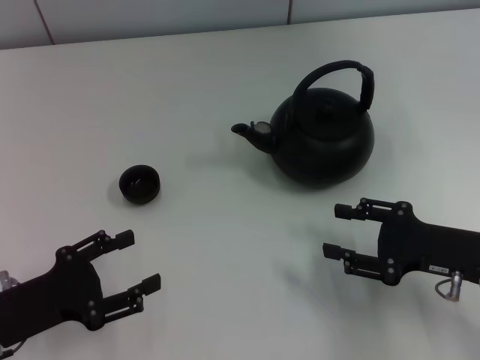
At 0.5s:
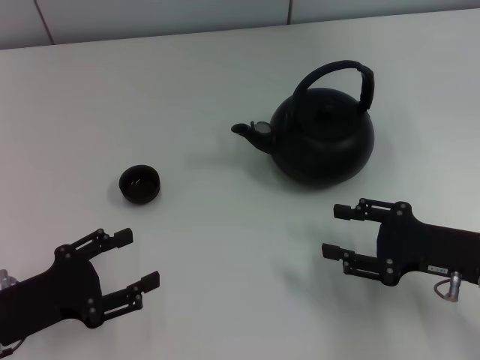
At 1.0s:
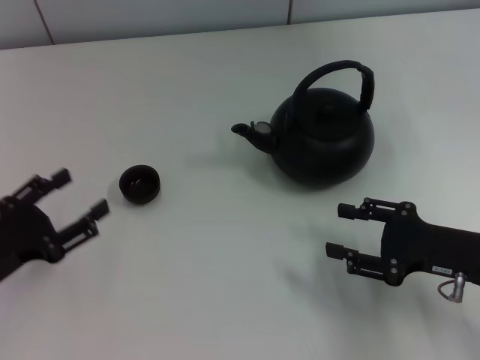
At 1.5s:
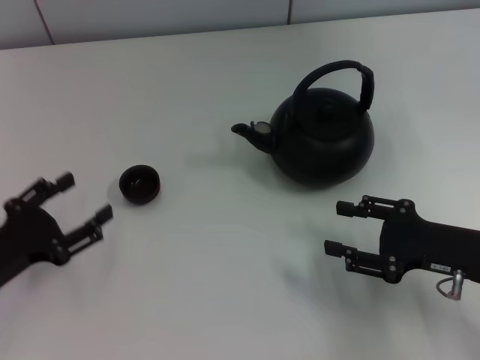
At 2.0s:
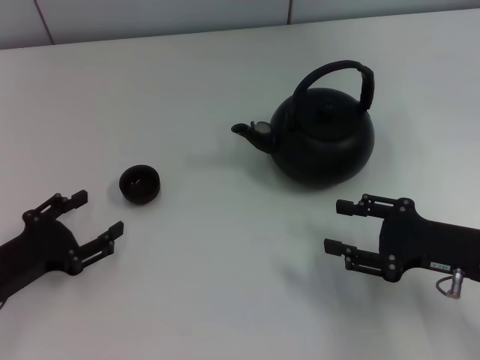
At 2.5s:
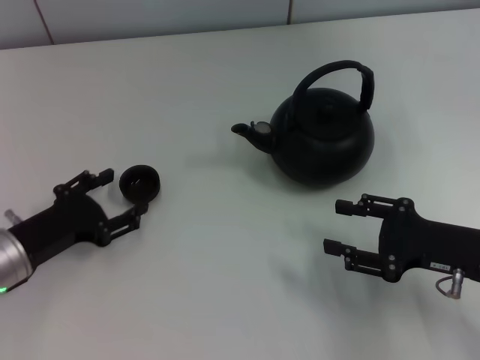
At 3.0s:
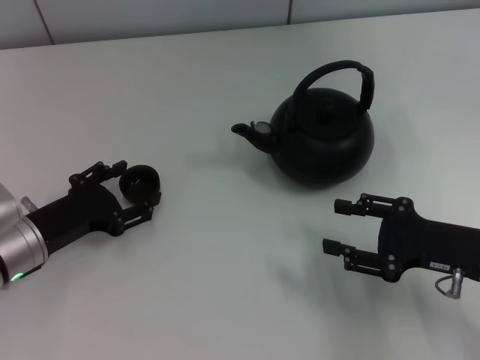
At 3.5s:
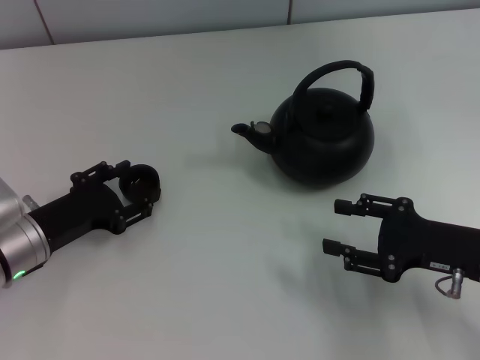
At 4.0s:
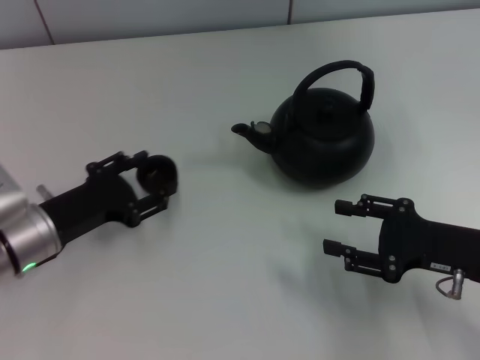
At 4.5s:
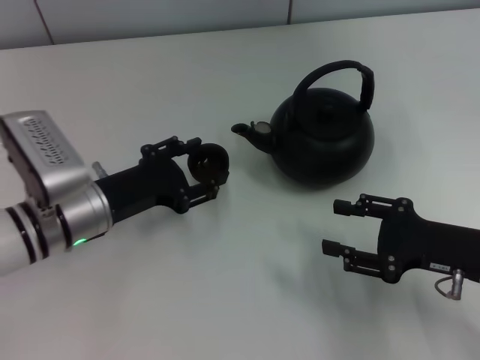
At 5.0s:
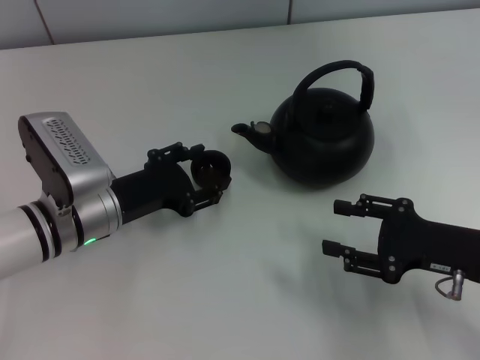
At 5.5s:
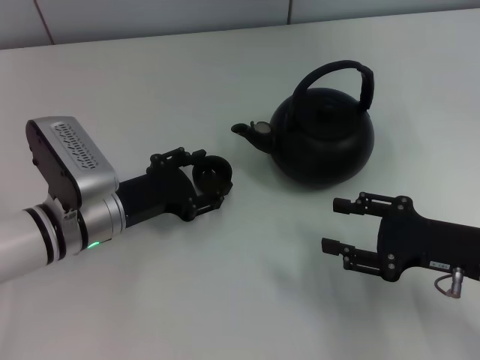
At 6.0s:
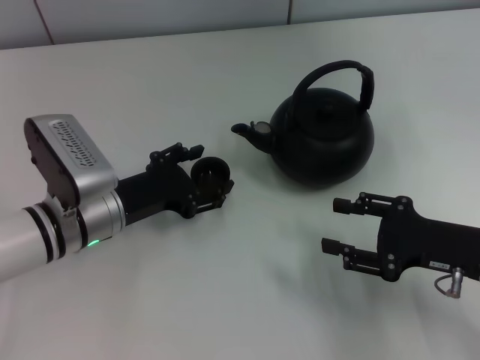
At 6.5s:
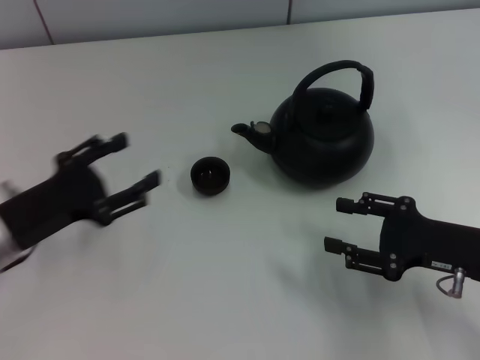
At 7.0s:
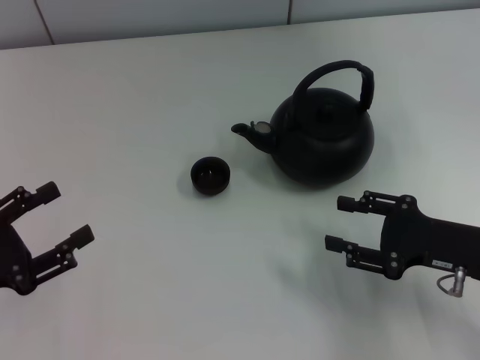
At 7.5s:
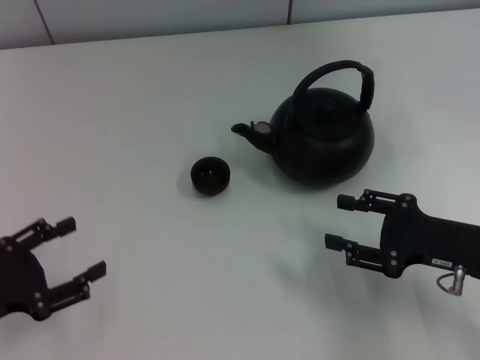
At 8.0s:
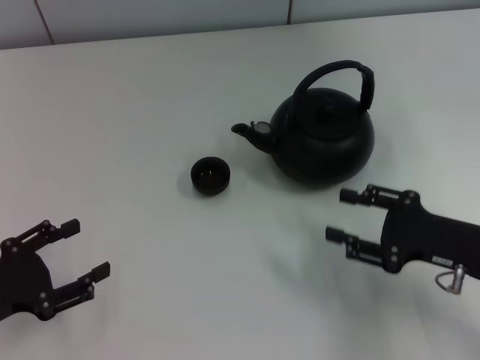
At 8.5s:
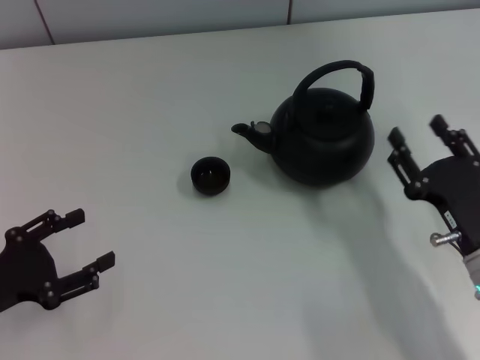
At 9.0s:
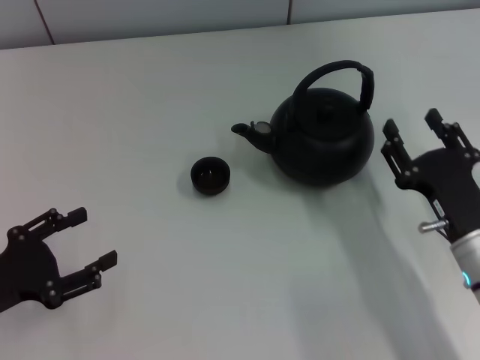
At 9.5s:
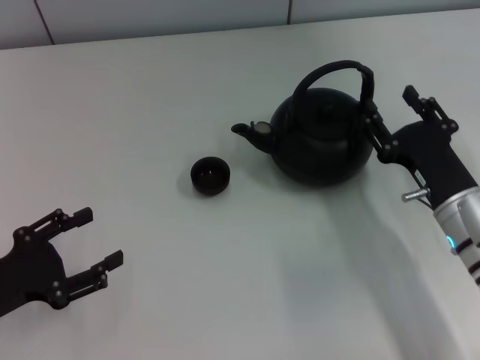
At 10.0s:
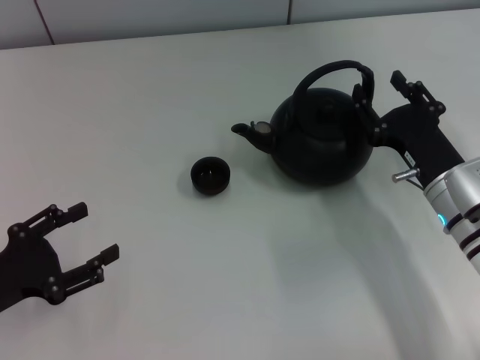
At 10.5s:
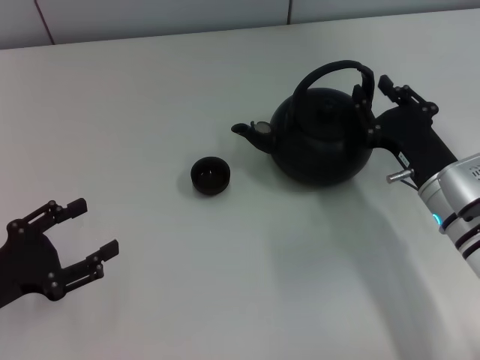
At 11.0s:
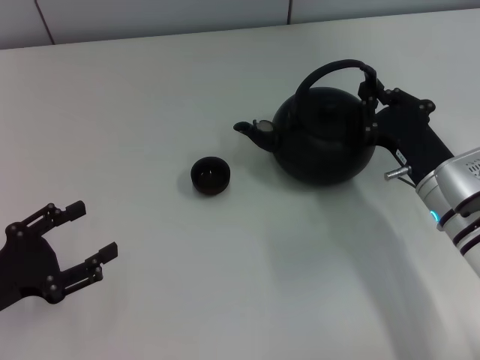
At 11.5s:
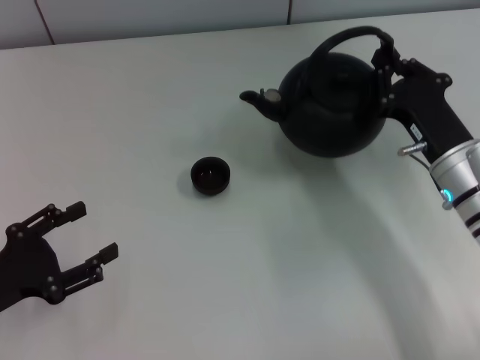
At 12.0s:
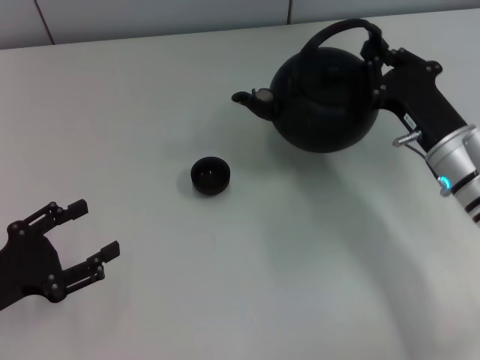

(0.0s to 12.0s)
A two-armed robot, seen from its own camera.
Task of the whole recording: Grasp the handle of the teapot with one hand and pour tea into the teacup.
Step, 0.0s - 4.5s: Pick up the teacup with the left gripper.
Step, 5.0s - 6.5s: Place the teacup in the center of view with the left gripper.
Step, 7.0s - 11.5s: Pick up the teapot with the right gripper.
2.0s - 4.0s: The left gripper is displaced to the right and forward by about 10 cm, and closes its fingers.
4.0s - 6.0s: The left gripper shifts about 5 cm to the right, and opens its fingers.
6.0s - 8.0s: The left gripper goes approximately 20 cm to the left and backward.
8.0s - 10.0s: The right gripper is displaced forward and to the left by some 5 cm.
10.0s - 12.0s: The right gripper closes up.

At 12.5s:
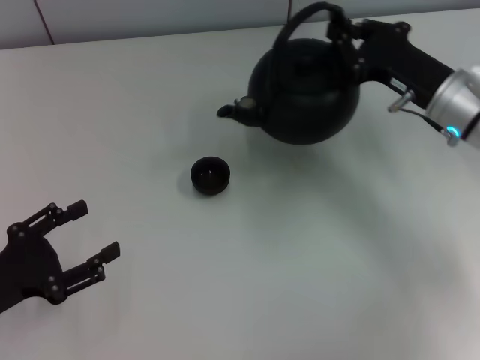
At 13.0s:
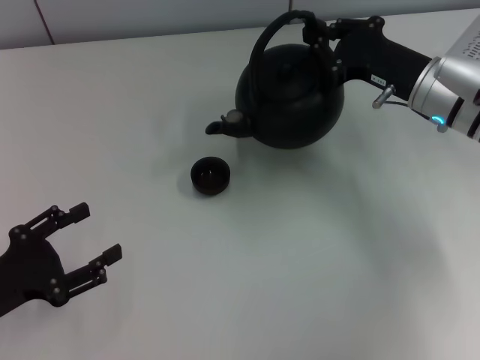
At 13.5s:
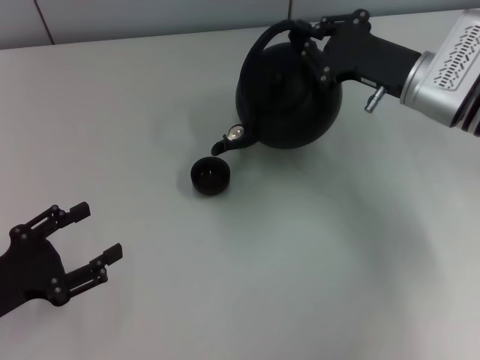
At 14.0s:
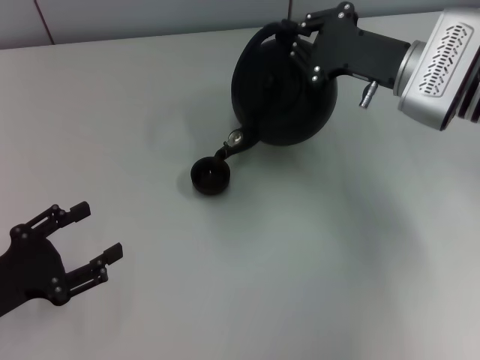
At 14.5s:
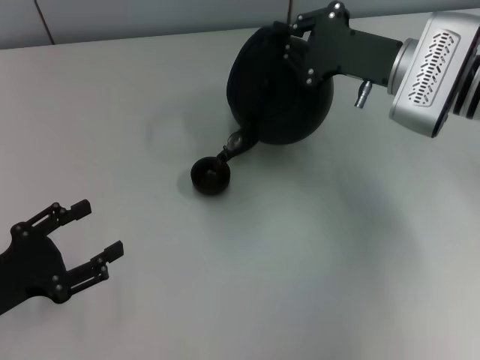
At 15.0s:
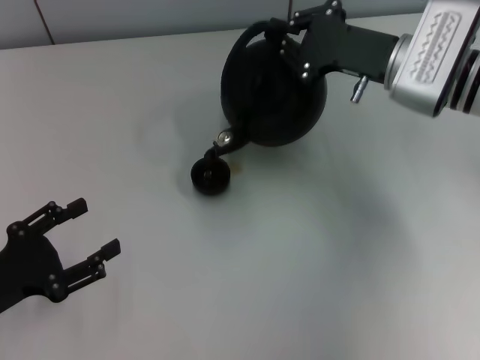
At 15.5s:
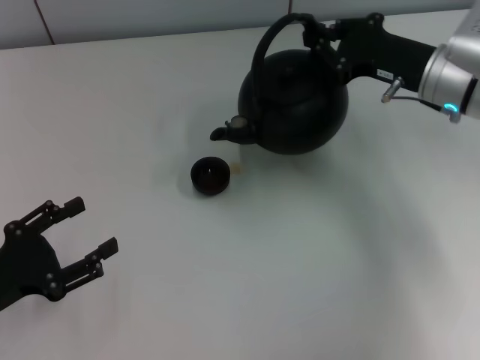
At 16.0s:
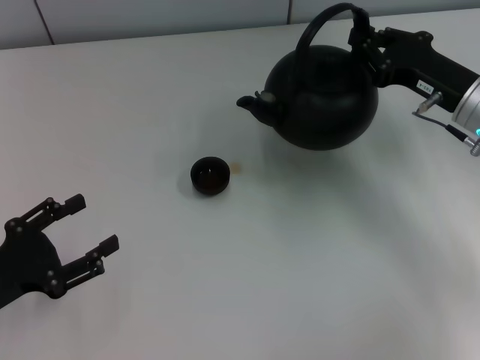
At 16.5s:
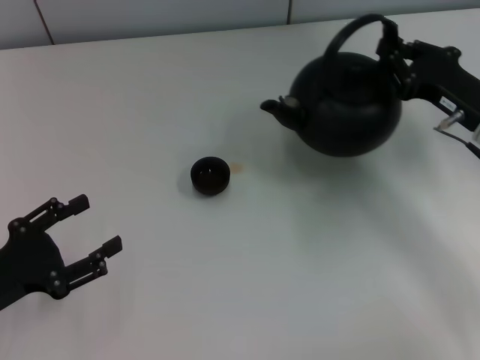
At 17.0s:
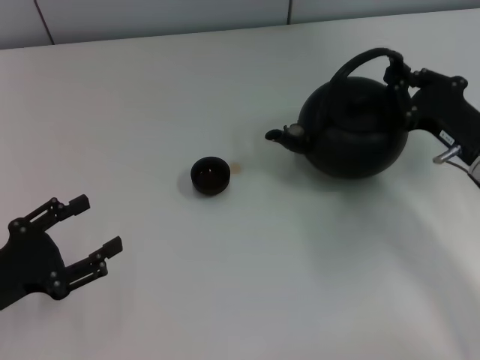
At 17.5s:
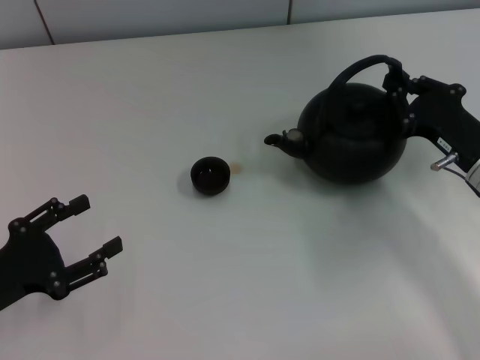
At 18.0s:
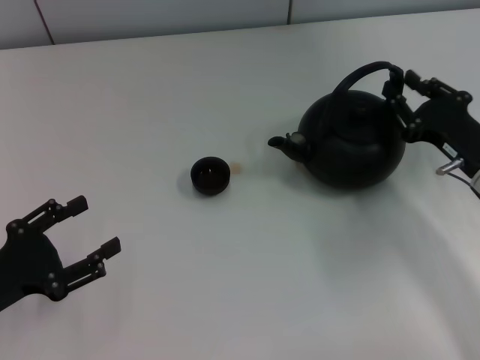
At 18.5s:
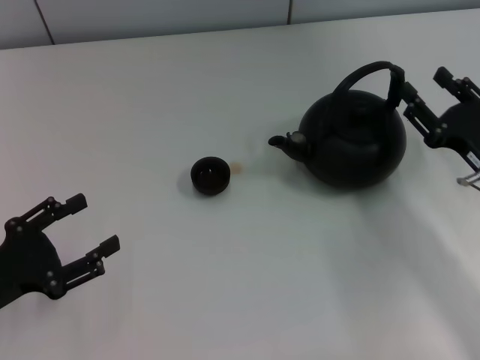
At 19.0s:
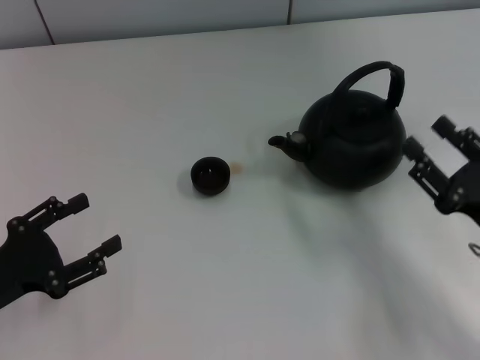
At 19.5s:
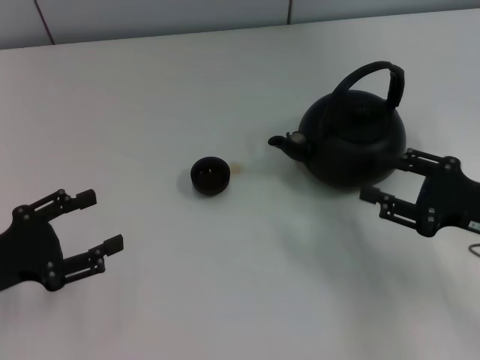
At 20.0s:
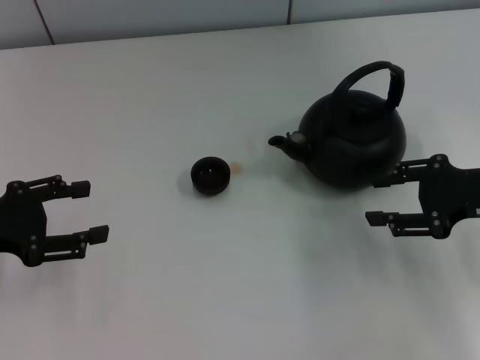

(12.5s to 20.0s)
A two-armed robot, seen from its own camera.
Task of the whole recording: Grasp the handle of the teapot with one hand and pour tea into the teacup.
Step, 15.5s - 18.0s: Put down the teapot with the right gripper.
12.5s - 14.5s: The right gripper changes place by approximately 5 cm.
14.5s - 16.5s: The right gripper travels to the right and backward by approximately 10 cm.
16.5s - 18.0s: The right gripper changes place by some 5 cm.
18.0s - 20.0s: The right gripper moves upward, about 5 cm, moves roughly 10 cm backward and comes back, and opens, while the left gripper is displaced forward and upward by some 10 cm.
